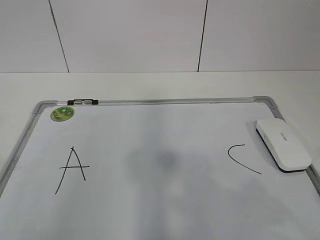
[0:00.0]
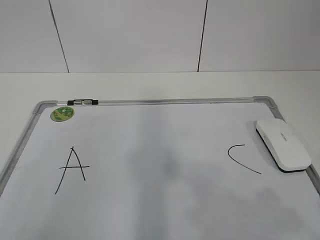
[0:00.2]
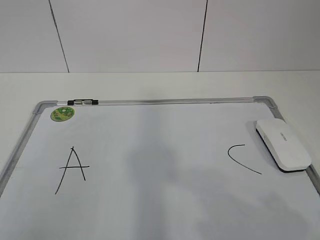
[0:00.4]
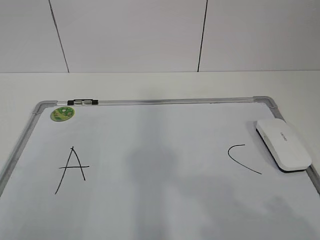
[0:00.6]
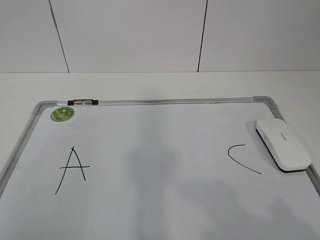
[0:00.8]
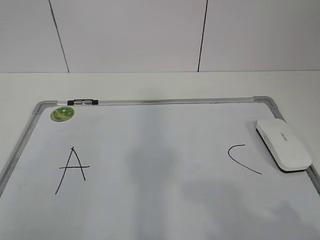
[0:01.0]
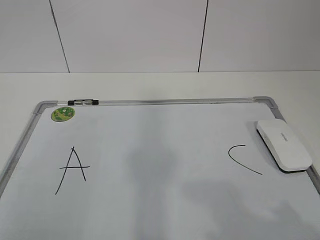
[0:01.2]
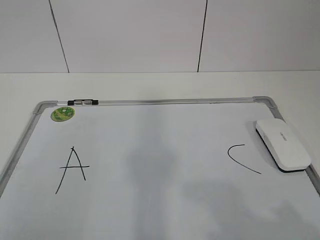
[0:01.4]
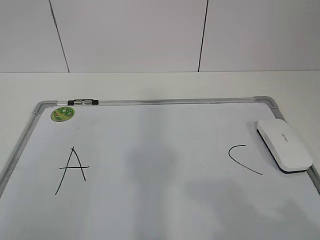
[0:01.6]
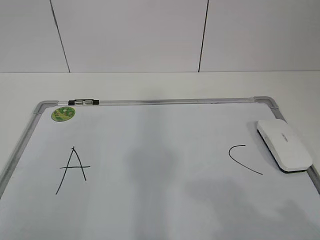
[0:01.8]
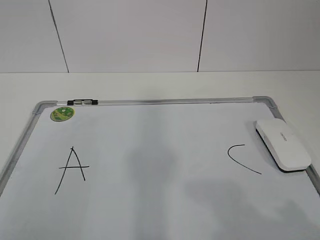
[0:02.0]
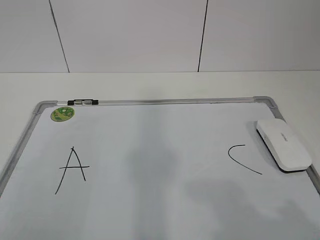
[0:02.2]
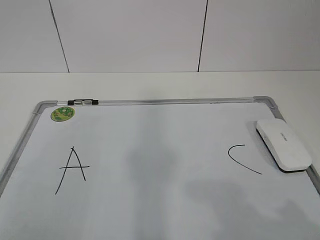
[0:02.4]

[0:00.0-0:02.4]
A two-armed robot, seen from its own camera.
Task of the whole recording: pick up the eraser on the blackboard and erase the letter "B".
0:01.2 to 0:02.4: Both grippers stay about where they are.

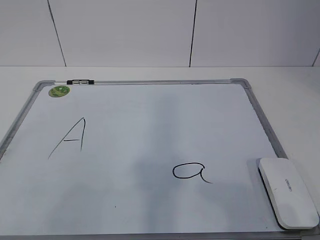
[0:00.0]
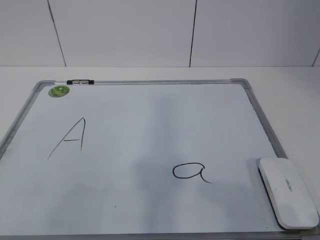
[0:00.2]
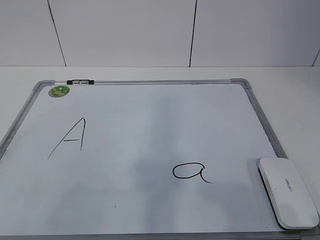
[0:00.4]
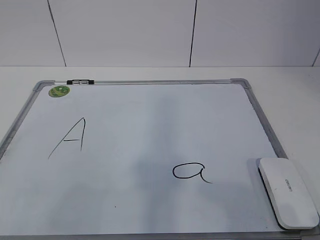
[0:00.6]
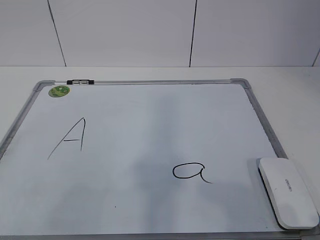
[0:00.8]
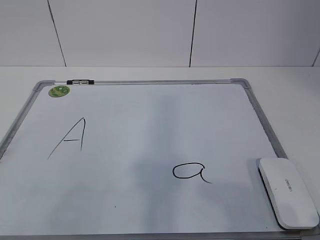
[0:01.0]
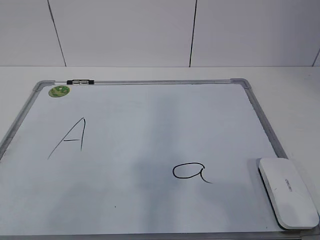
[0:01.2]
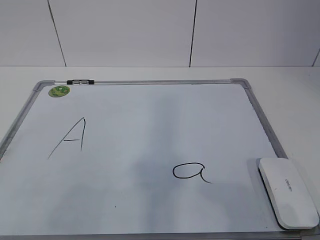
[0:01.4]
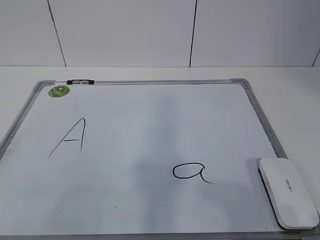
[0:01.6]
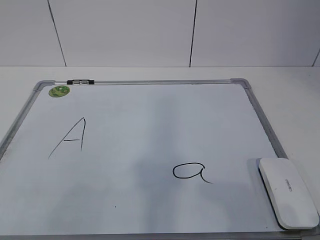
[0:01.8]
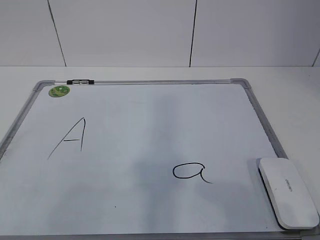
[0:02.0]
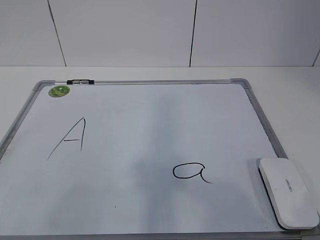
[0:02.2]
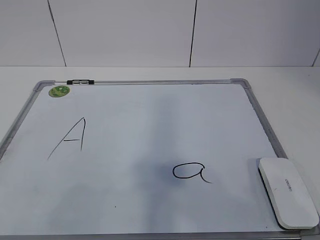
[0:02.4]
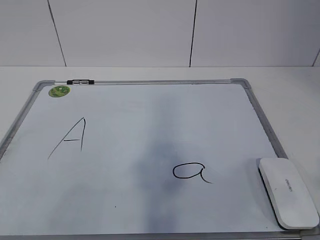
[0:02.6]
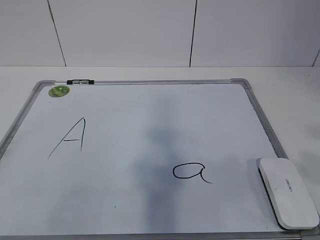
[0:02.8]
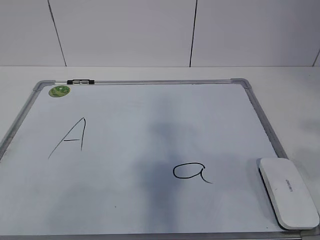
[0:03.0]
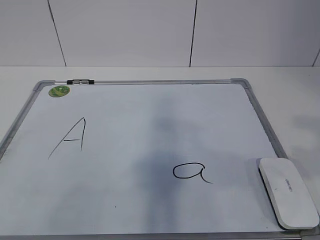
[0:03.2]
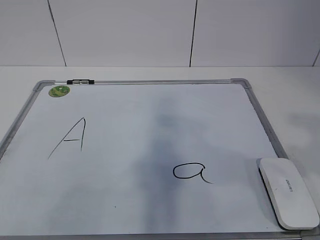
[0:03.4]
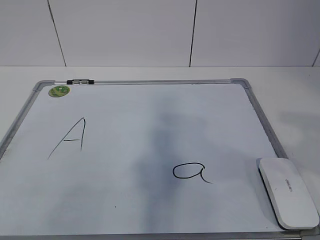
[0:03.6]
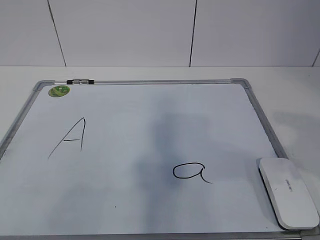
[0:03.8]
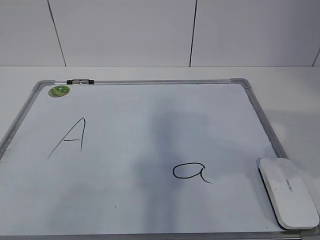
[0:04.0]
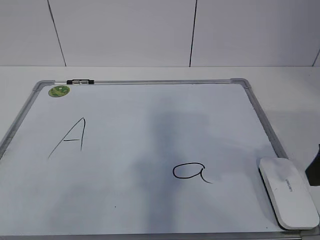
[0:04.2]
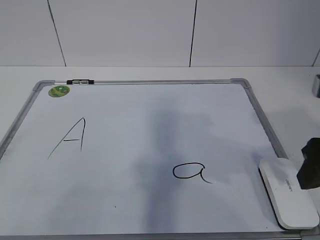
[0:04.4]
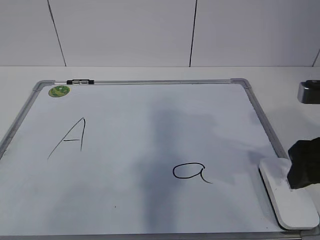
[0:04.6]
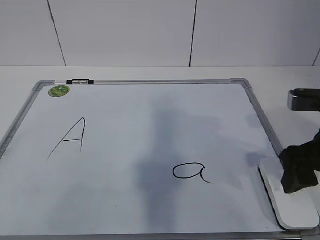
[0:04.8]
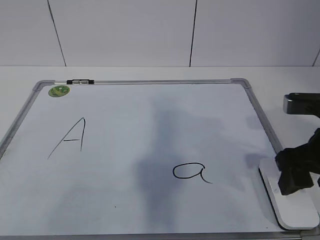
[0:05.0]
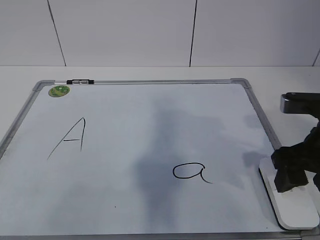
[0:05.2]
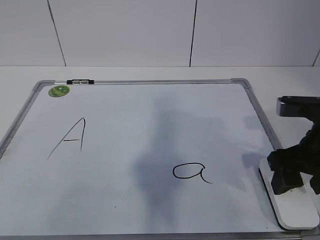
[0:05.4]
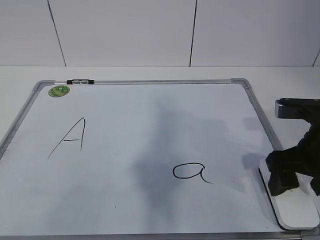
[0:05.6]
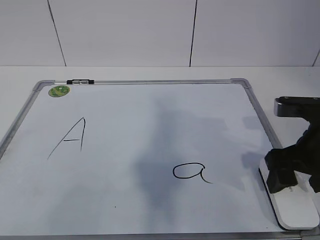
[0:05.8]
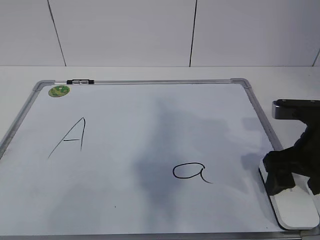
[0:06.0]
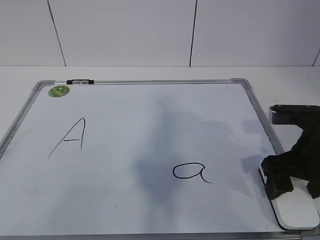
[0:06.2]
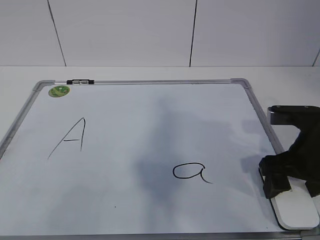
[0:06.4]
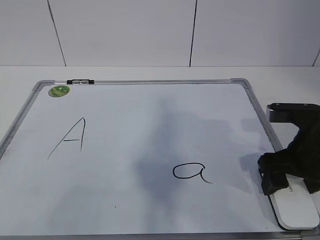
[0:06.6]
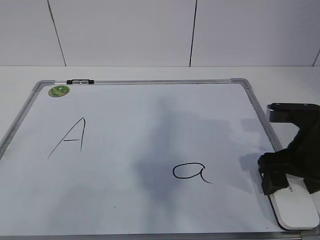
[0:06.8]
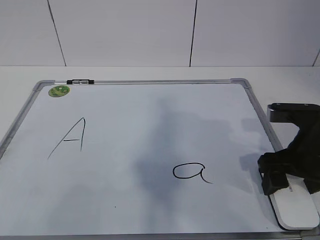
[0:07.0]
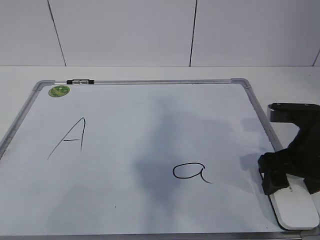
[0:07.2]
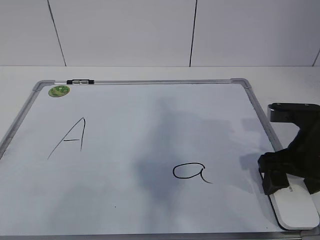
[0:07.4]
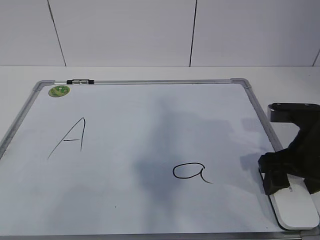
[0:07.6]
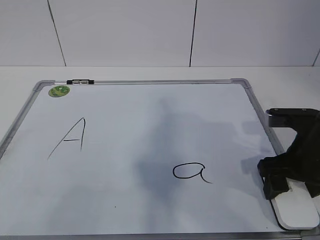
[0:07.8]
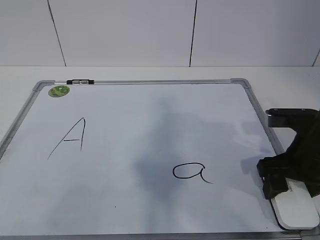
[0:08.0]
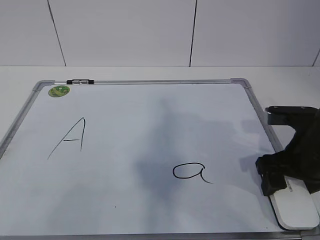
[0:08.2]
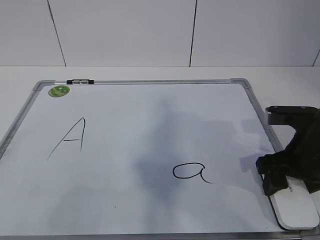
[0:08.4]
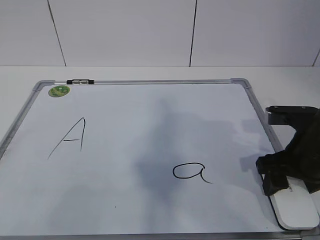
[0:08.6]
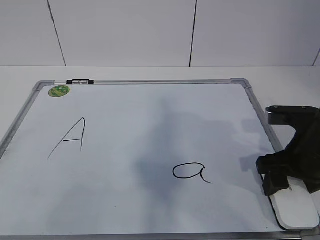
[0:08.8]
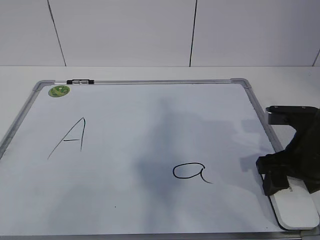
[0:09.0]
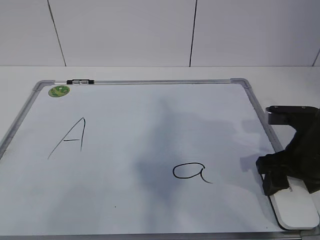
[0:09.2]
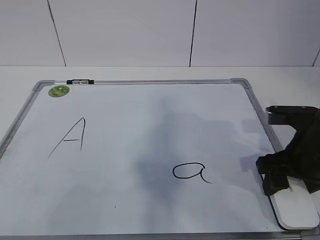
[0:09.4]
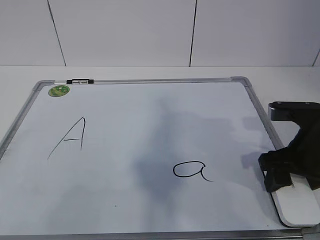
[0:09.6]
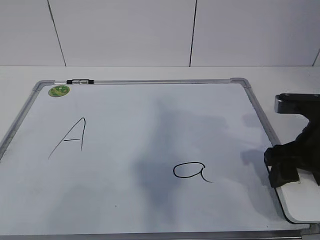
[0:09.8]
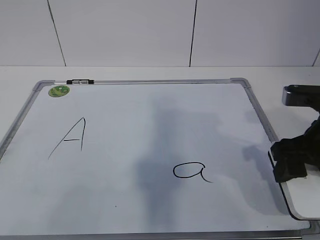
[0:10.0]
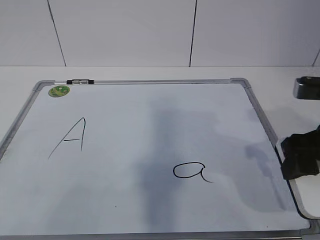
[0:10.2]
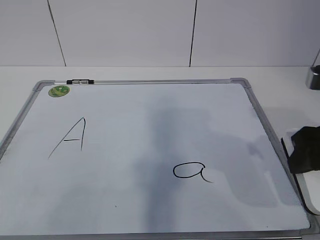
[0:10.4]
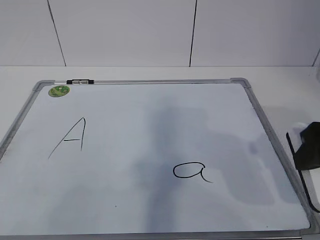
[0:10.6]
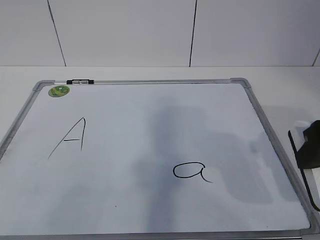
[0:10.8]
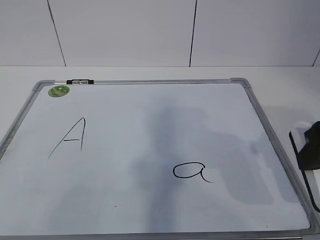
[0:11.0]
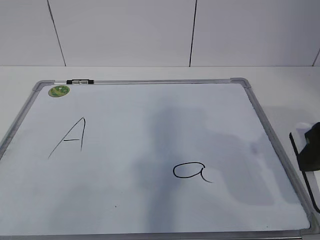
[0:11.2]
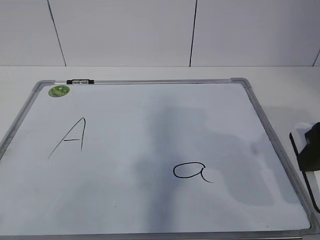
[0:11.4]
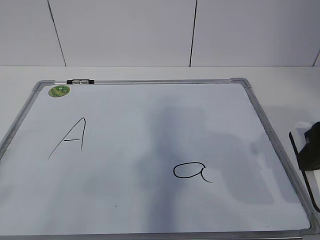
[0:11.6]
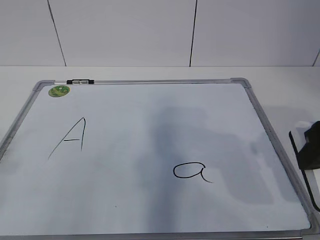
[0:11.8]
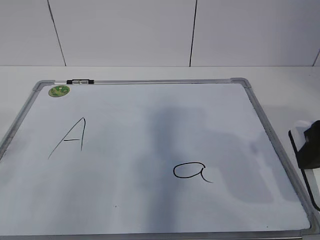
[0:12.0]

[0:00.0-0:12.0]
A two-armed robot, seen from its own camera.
Task of the whole recording: pick up the eraser on the blackboard and erase the letter "a".
Step, 0:00.0 to 0:07.8: Grab the eraser with your right hand.
0:01.6 to 0:03.0: The right gripper travels upward and forward by some 10 cm.
0:03.0 to 0:04.4: The right gripper travels forward and downward by about 15 cm.
0:04.4 to 0:06.0: The right gripper goes roughly 5 cm downward, and opens.
0:06.0 to 0:07.6: There are only small adjustments of the grippers.
0:07.6 to 0:09.0: The right gripper closes up.
0:09.0 to 0:10.4: The right gripper heads upward, covering roughly 10 cm.

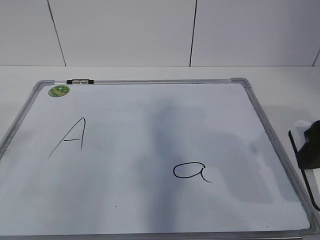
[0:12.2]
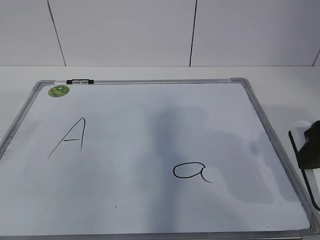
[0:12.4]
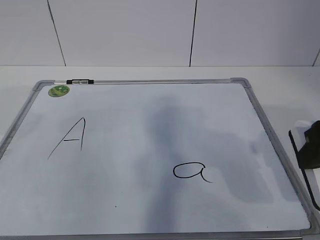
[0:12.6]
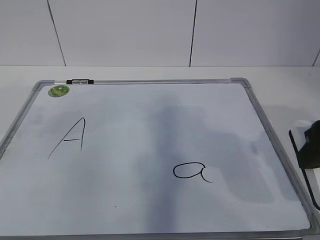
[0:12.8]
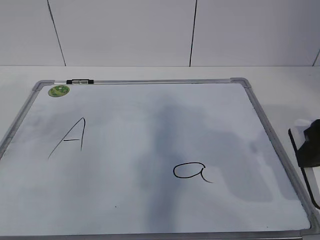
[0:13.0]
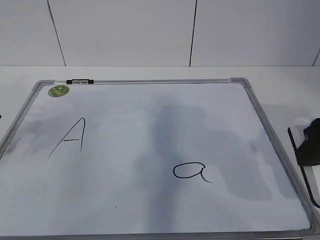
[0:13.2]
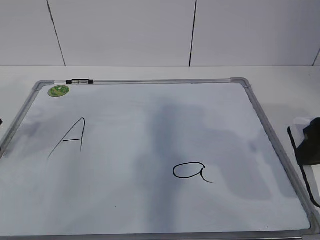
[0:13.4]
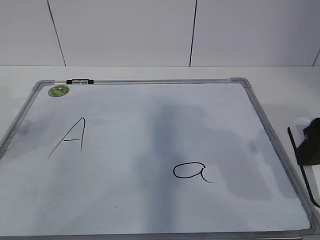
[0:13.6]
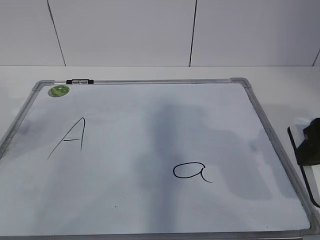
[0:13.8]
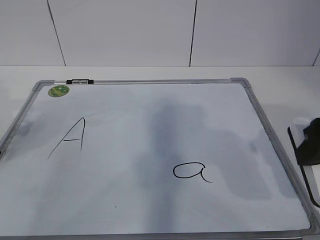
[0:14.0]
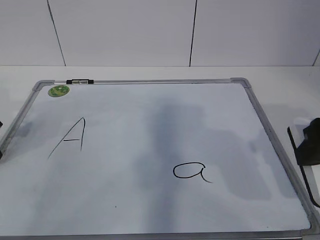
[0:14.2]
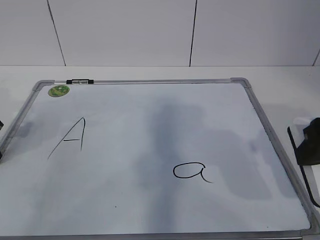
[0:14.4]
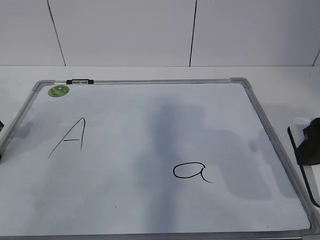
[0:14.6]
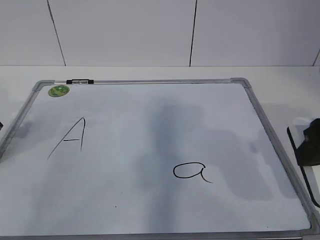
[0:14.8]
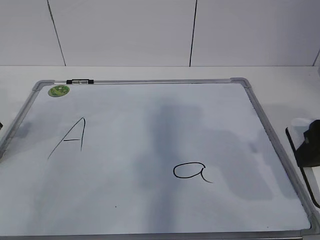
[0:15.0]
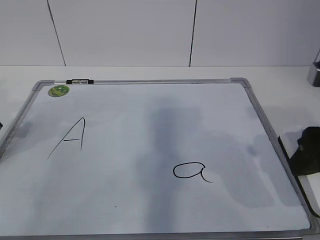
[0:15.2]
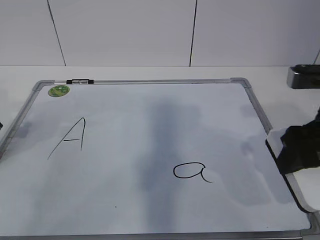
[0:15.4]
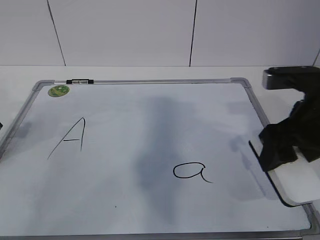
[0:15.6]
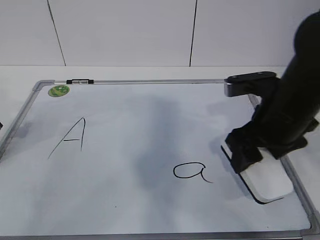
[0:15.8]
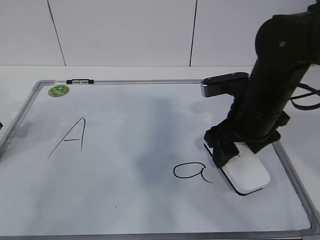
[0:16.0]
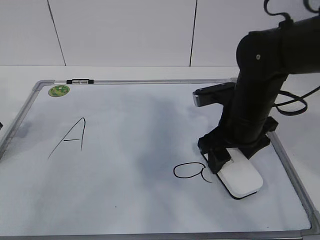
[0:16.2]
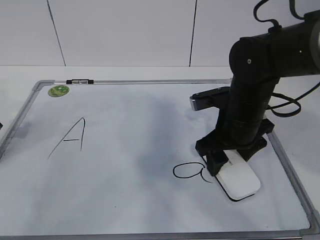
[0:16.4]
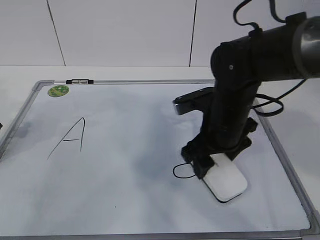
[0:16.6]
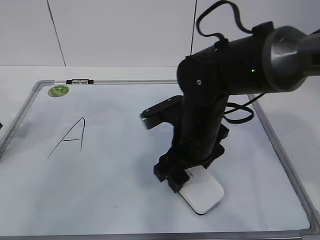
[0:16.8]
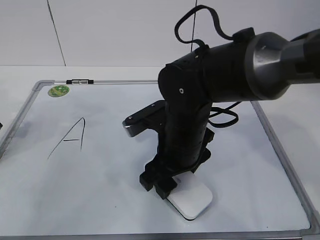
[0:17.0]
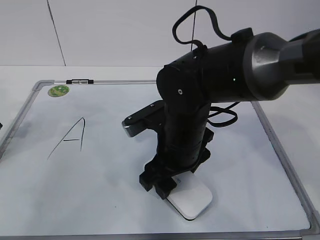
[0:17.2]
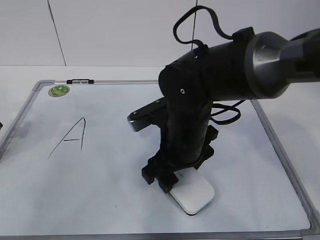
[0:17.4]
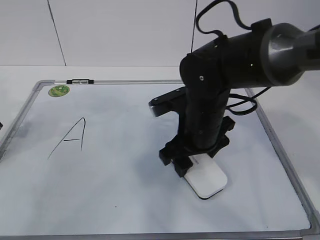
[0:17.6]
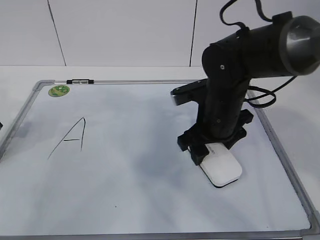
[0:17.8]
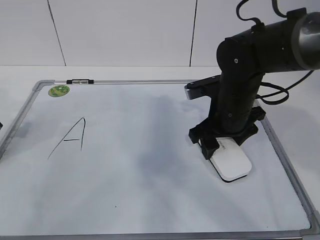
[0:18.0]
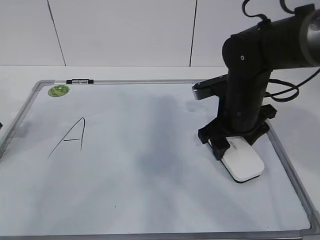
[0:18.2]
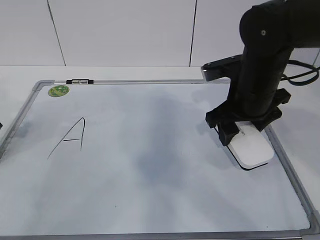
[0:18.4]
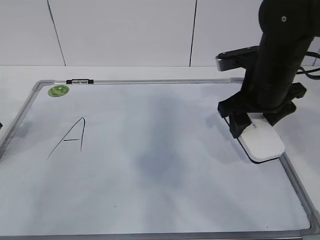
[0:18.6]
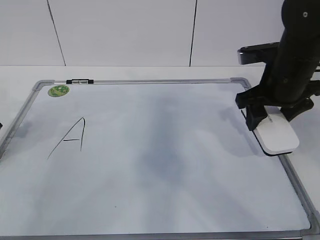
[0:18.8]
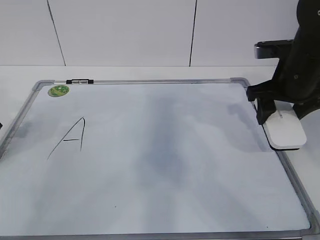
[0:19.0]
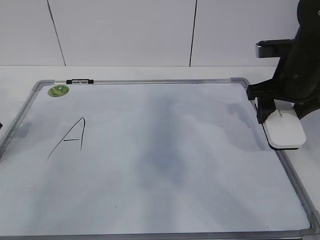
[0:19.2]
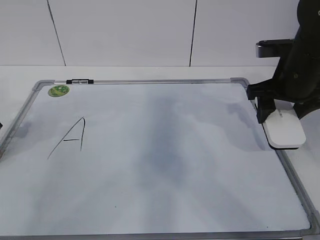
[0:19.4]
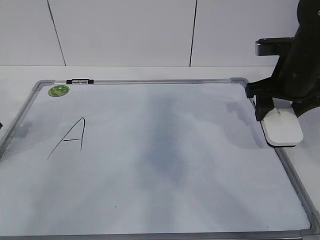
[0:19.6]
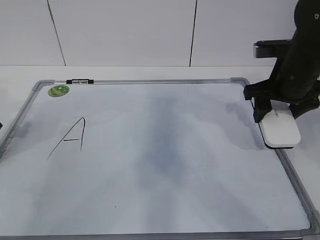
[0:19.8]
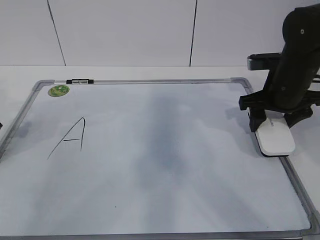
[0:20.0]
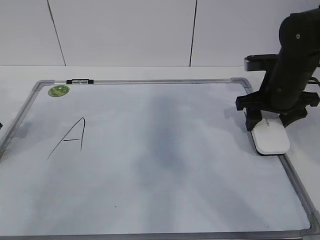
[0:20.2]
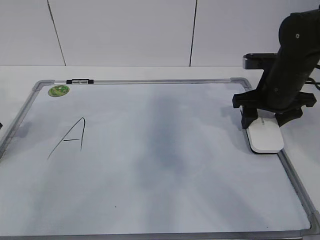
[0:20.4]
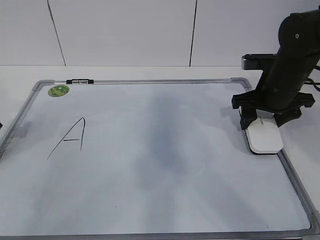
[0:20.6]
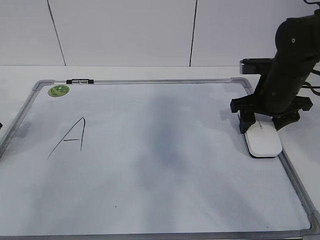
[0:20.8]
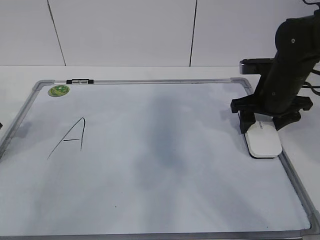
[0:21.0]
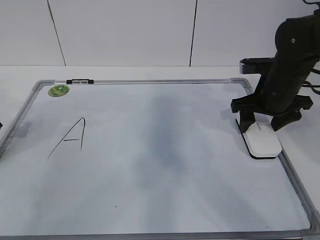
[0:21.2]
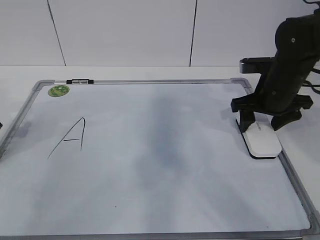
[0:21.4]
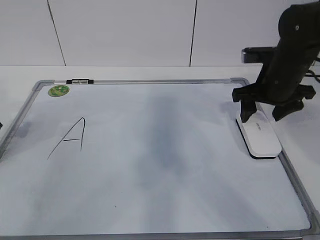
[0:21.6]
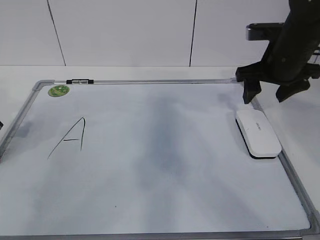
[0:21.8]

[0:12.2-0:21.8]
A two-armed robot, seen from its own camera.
Task of the whole recording: pick up the eraser on the blackboard and erase the letter "a".
Step, 0:15.2 to 0:17.4: Put down the eraser with your right hand.
0:12.2 to 0:13.8: The left gripper is displaced forward and downward by roughly 20 cm.
0:15.4 to 0:17.0: The right gripper goes about 20 cm to the left and downward.
0:17.0 to 0:18.6: The right gripper shifts roughly 15 cm to the right, upward and forward.
0:18.6 to 0:20.2: The right gripper shifts roughly 5 cm to the right.
0:20.2 to 0:21.8: The right gripper moves about 5 cm, and opens up.
